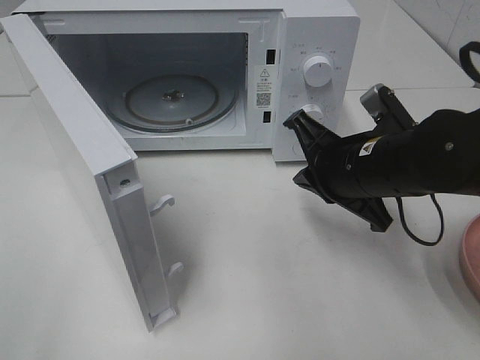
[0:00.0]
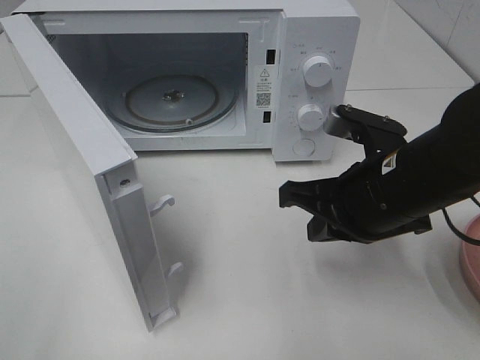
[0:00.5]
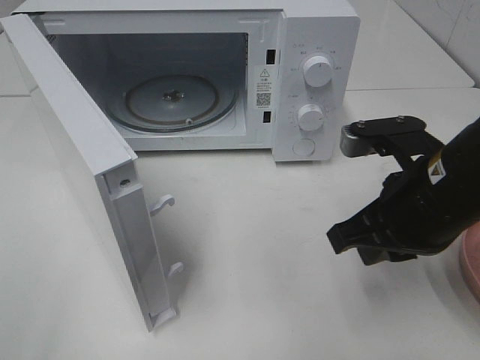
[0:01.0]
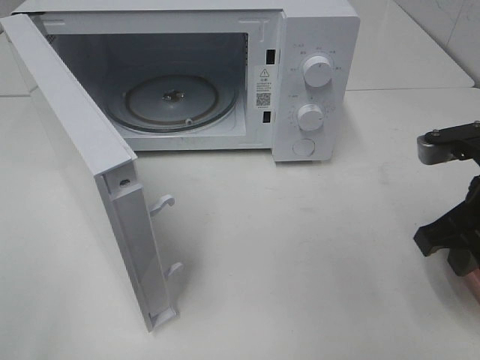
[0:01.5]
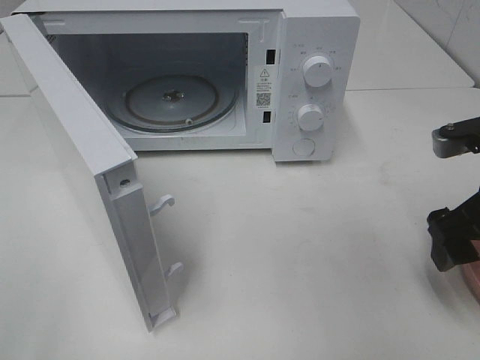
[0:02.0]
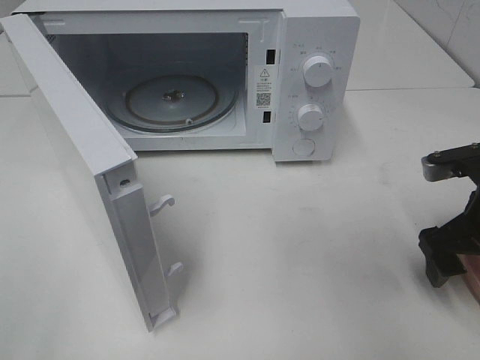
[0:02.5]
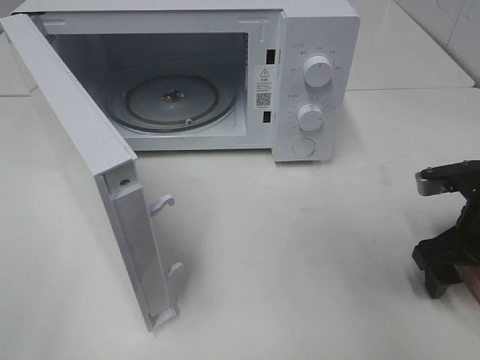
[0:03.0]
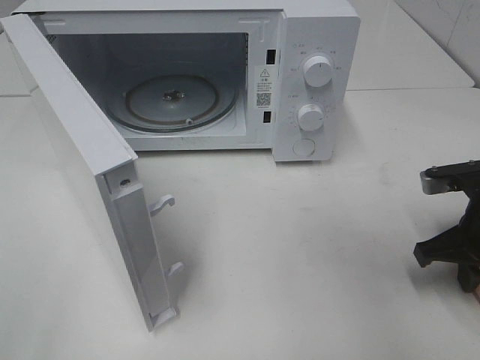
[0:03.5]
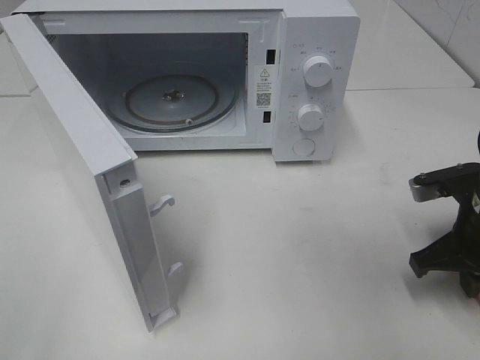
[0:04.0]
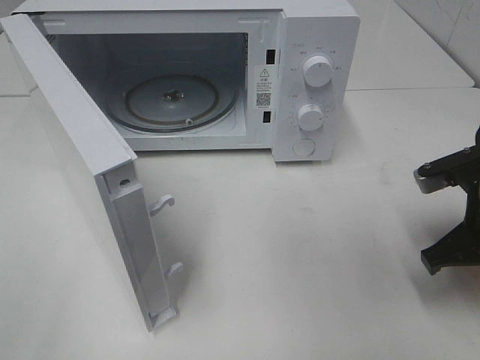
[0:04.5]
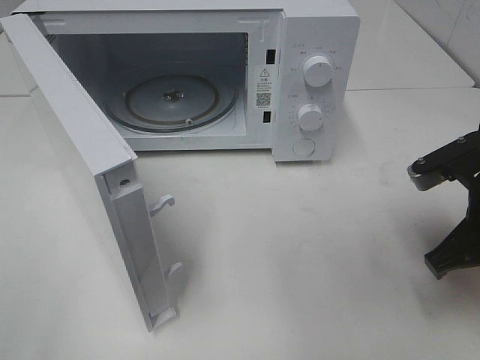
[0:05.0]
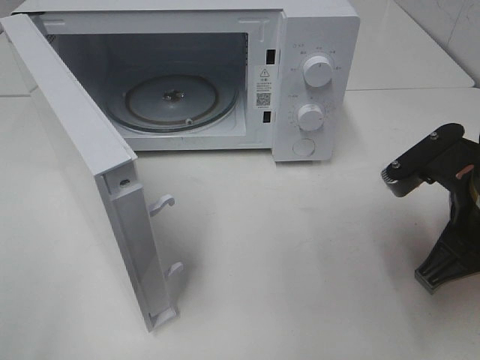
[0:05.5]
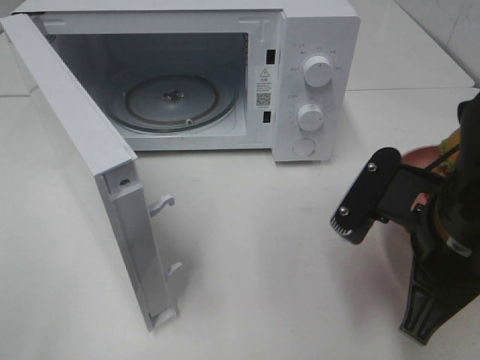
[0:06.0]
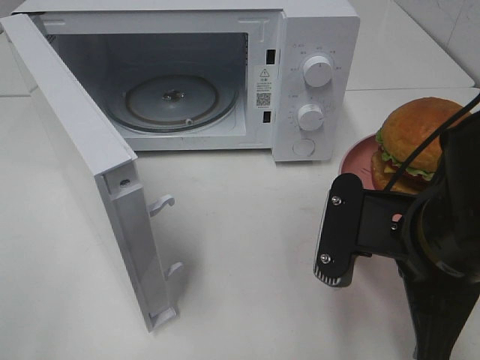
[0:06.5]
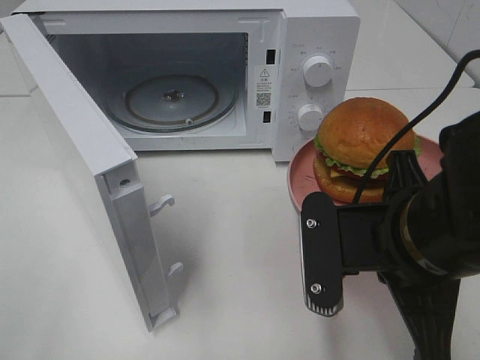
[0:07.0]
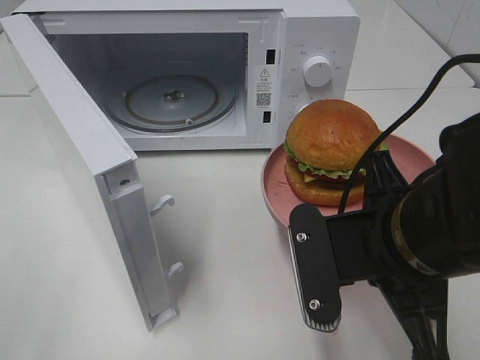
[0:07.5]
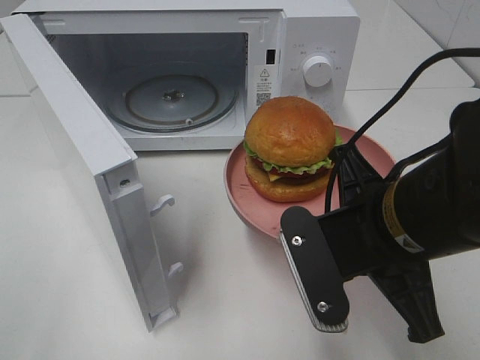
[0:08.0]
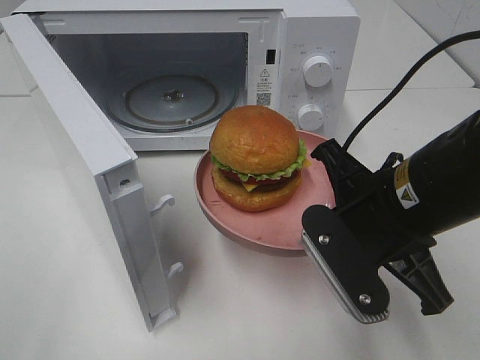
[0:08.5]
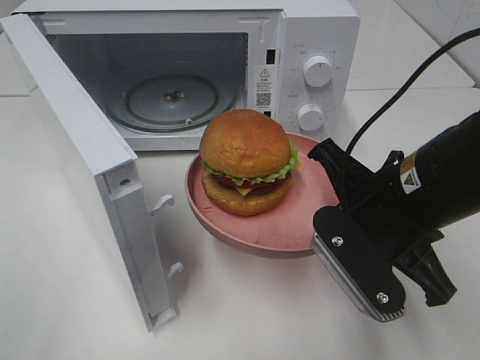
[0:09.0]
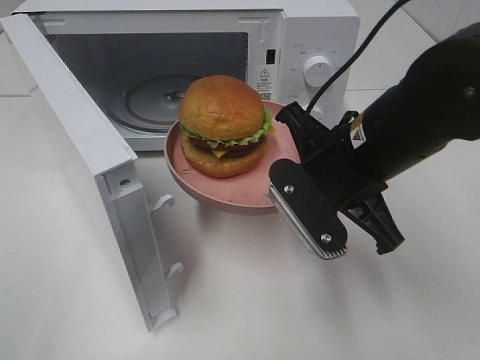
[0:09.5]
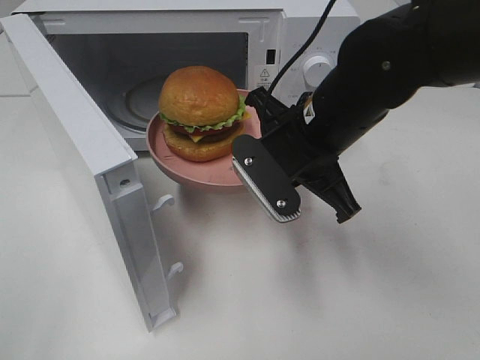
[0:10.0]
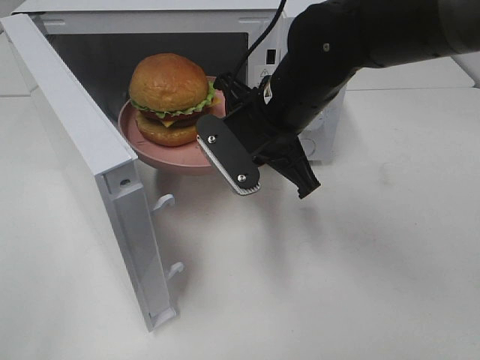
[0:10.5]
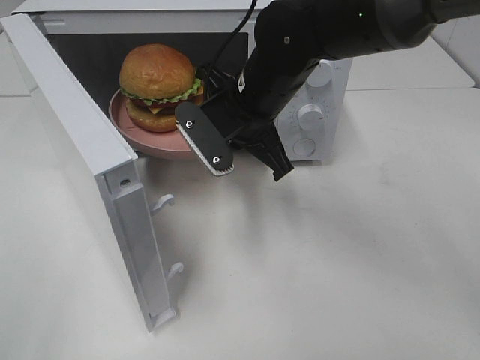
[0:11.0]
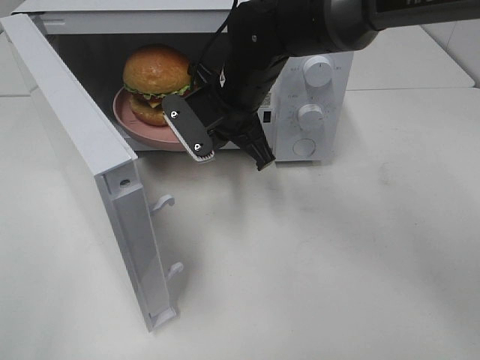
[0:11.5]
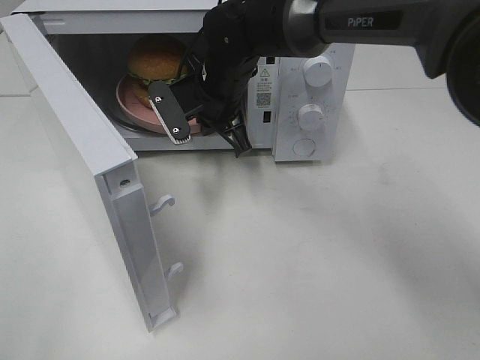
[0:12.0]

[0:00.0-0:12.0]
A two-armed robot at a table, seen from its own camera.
Task of the whole recording: Heat the burger.
Step, 0:00.0 to 0:04.0: Right hand: grab the plate with the hamburger.
0:00.0 to 0:02.0: The right gripper is displaced to the right by some 10 cm, and opens up.
0:02.0 to 0:04.0: The right gripper moves downward, about 5 cm, and closes up.
0:04.0 to 0:06.0: The right gripper travels to the left, backward and upward by roughly 15 cm.
0:08.0 to 0:10.0: The right gripper is displaced forward by about 10 cm.
0:10.0 to 0:12.0: The right gripper goes about 15 cm forward and to the left.

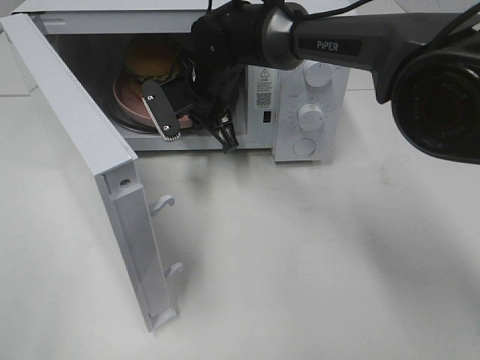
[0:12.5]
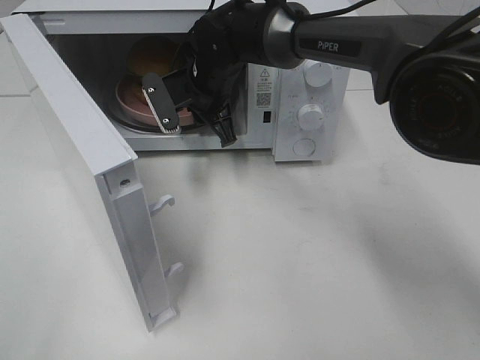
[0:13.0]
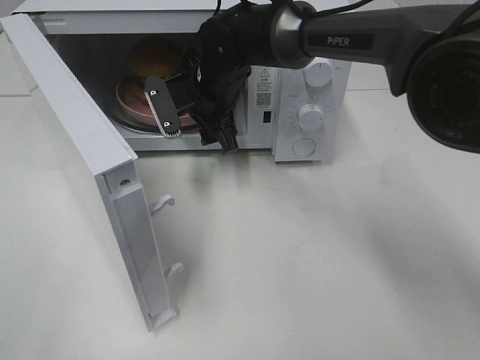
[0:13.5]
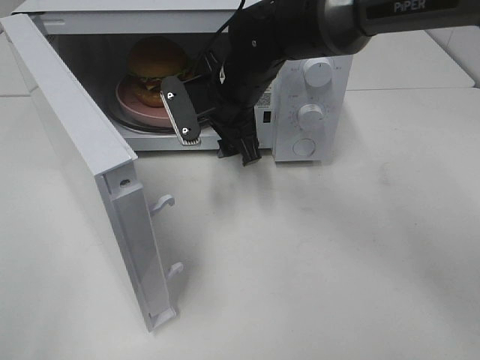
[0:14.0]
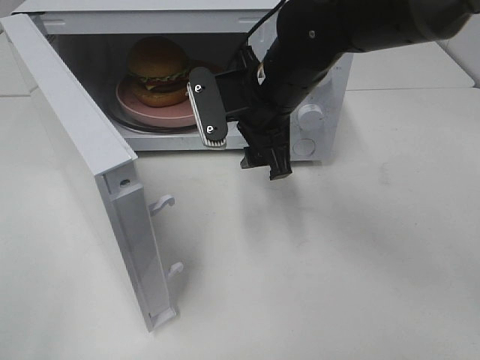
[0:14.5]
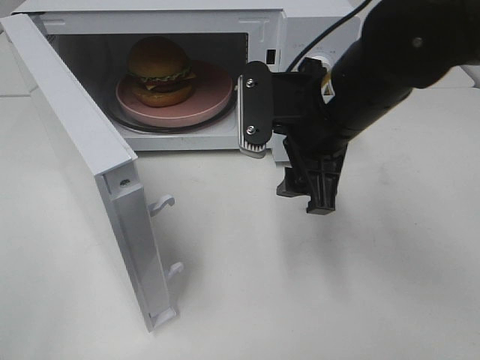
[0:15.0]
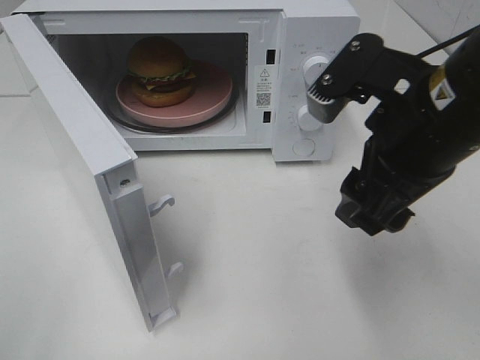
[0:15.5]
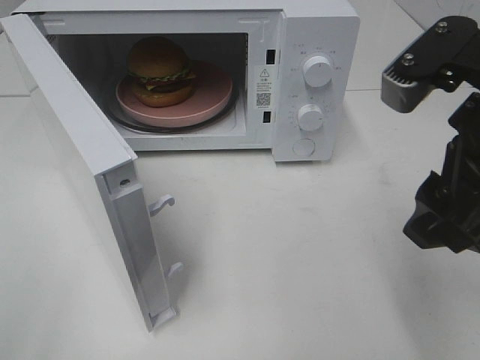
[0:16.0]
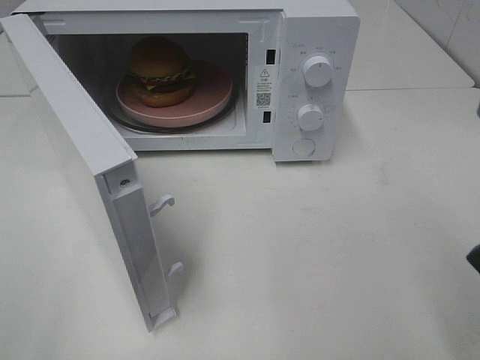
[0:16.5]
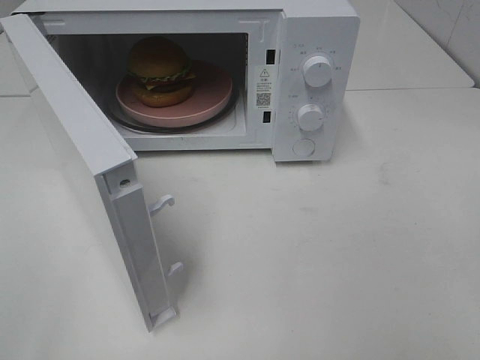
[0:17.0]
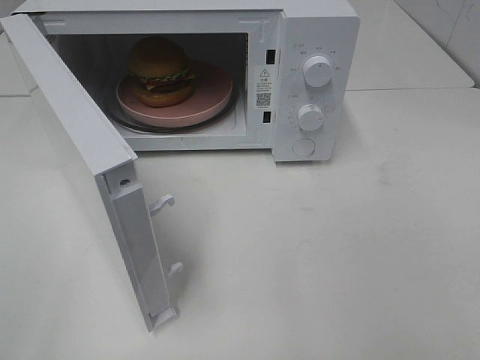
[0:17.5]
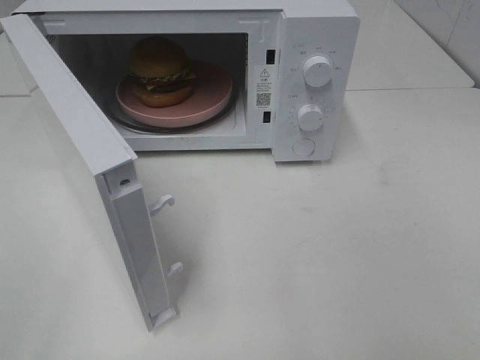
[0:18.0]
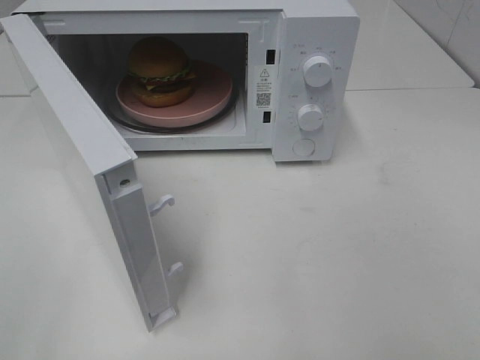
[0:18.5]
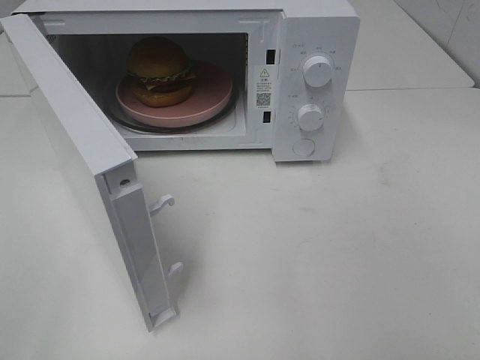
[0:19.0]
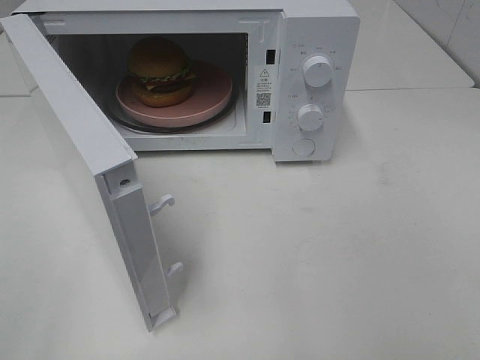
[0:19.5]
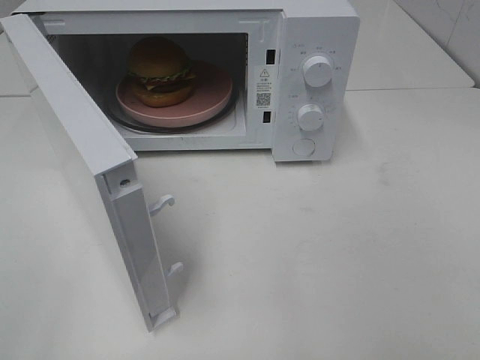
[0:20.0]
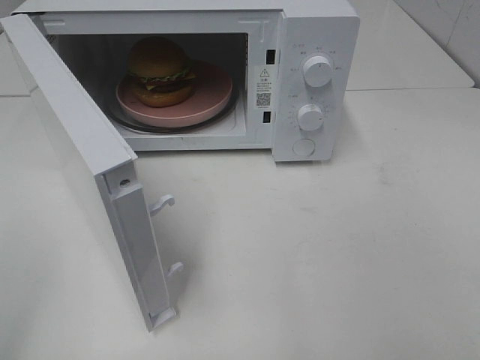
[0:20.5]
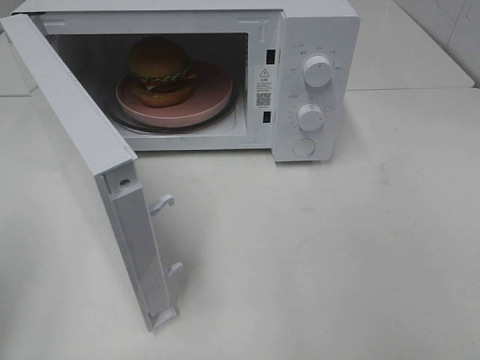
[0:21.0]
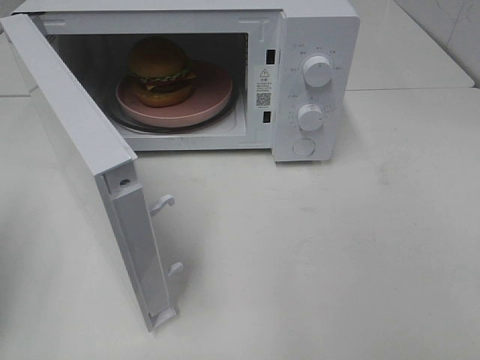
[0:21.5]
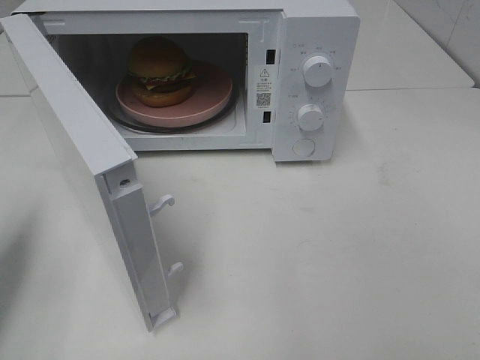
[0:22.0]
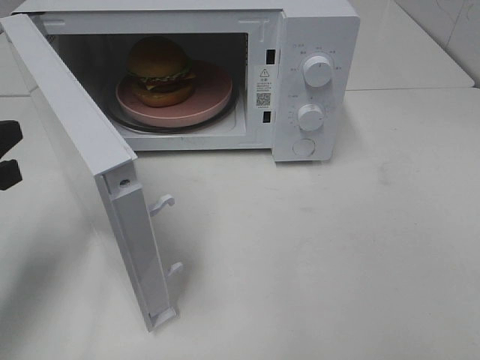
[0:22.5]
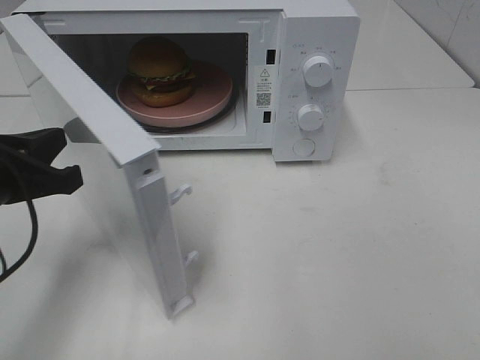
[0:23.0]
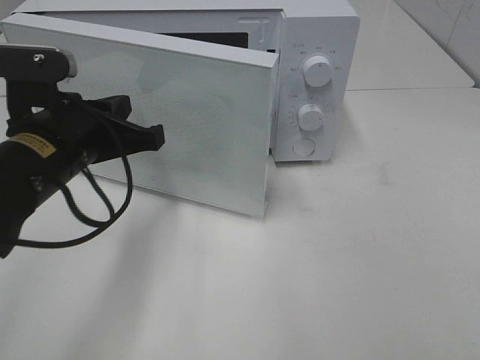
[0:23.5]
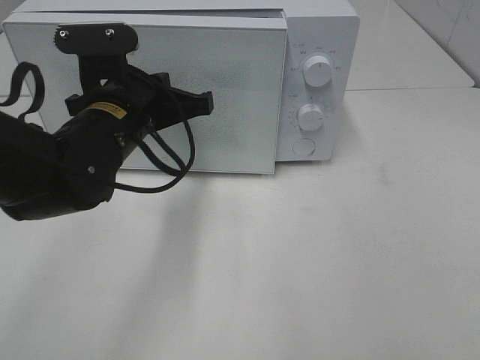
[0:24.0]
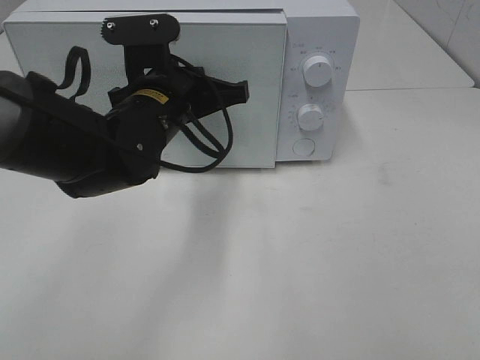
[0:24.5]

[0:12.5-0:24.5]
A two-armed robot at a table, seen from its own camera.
Task of the whole recording: Heat the burger.
0:12.5 to 0:14.5: The right gripper shifts approximately 15 cm backward and to the right, and opens its fingers.
0:14.5 to 0:16.5: The right gripper goes some 30 cm backward, to the right and upward.
0:16.5 to 0:18.5: The right gripper heads backward and to the right, covering roughly 15 cm.
0:20.5 to 0:22.5: The left gripper travels forward and downward by about 20 cm, and closes its fingers.
0:22.5 to 0:24.5: The left gripper moves to the right and forward, some 25 cm.

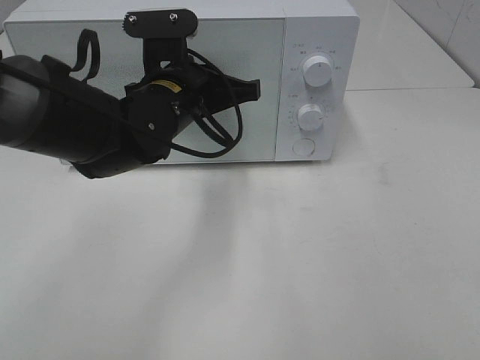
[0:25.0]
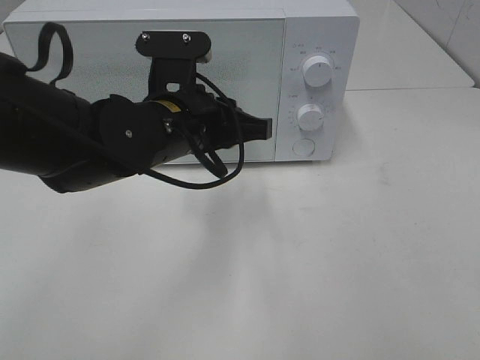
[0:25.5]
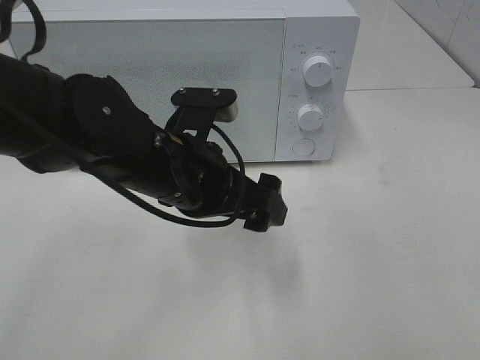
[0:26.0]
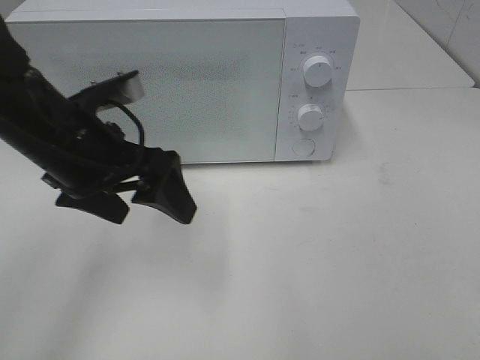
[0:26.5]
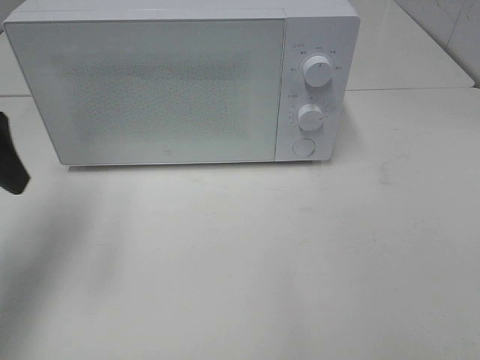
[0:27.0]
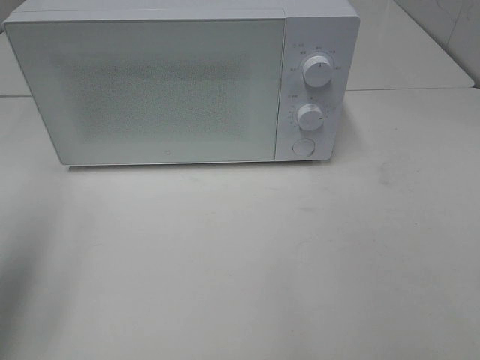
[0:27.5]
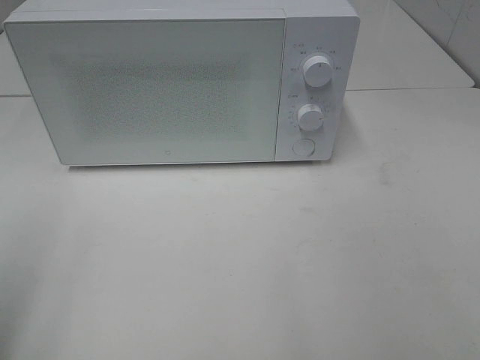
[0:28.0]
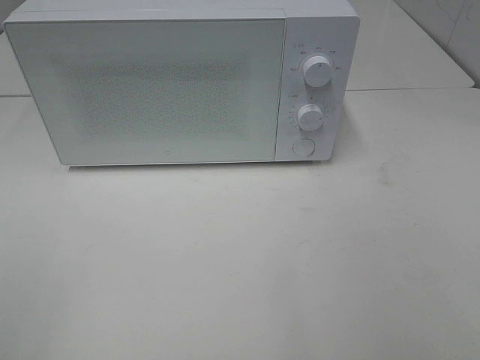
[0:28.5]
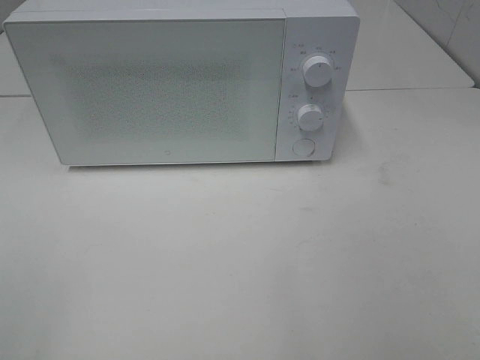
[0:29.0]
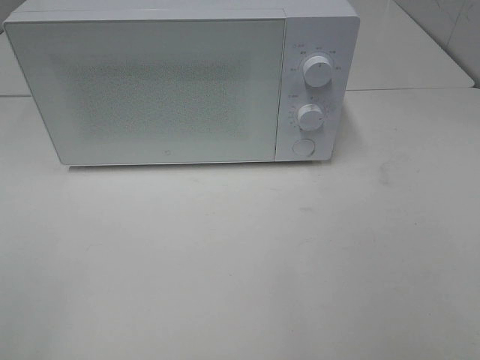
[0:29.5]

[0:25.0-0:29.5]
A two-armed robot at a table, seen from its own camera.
Task of the whole recording: Heat the burger.
0:25.0 to 0:27.0: The left gripper shifts about 25 cm to the left and upward, and opens up.
0:27.0 to 0:29.5: The left gripper heads backward, covering roughly 25 cm.
